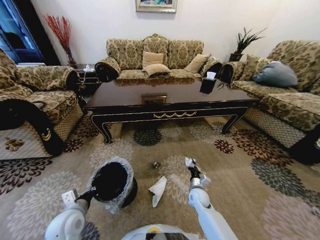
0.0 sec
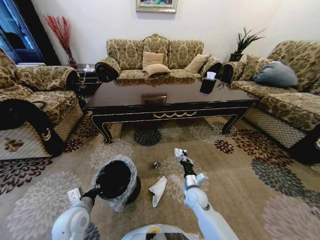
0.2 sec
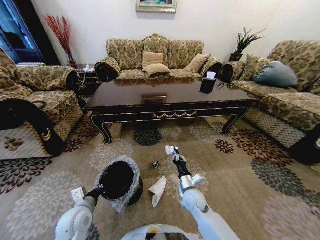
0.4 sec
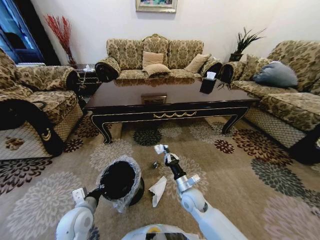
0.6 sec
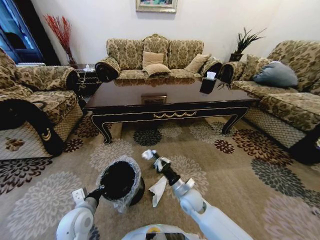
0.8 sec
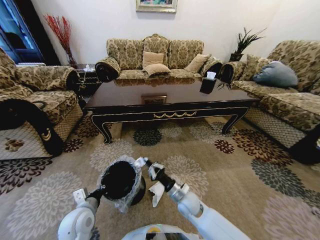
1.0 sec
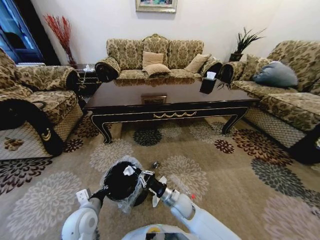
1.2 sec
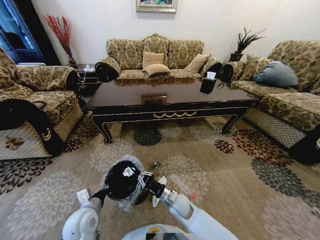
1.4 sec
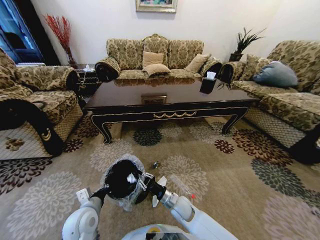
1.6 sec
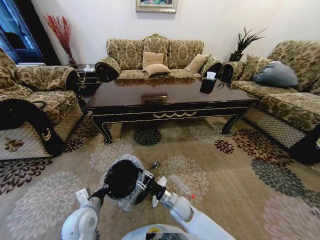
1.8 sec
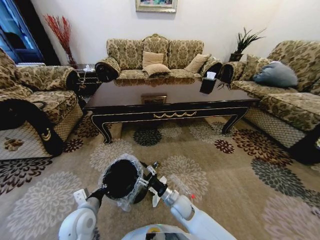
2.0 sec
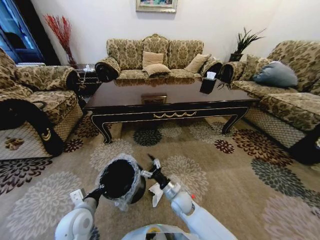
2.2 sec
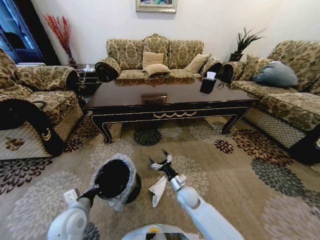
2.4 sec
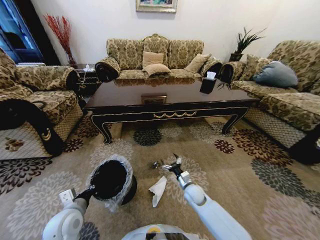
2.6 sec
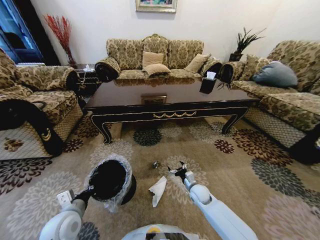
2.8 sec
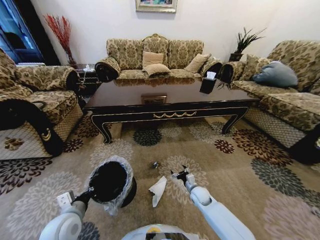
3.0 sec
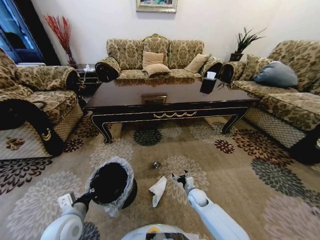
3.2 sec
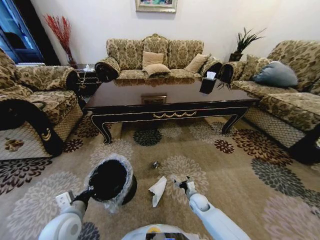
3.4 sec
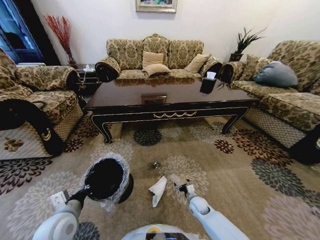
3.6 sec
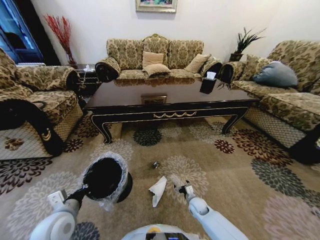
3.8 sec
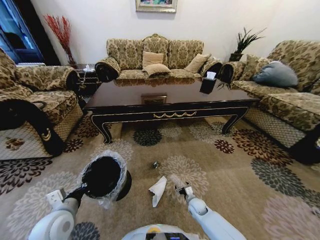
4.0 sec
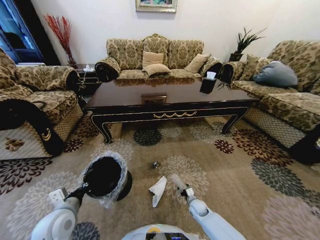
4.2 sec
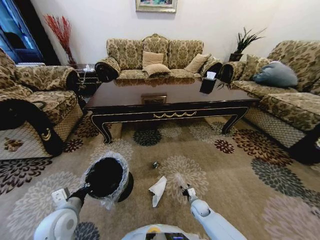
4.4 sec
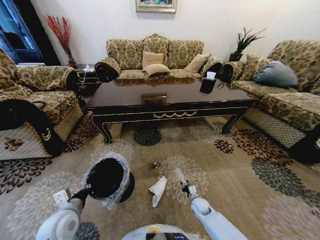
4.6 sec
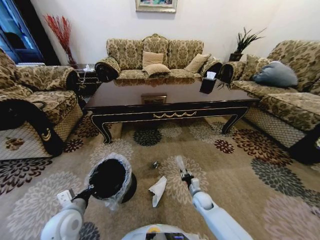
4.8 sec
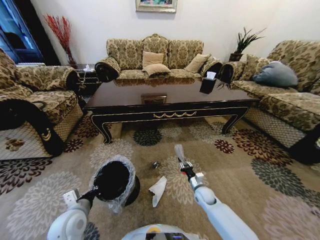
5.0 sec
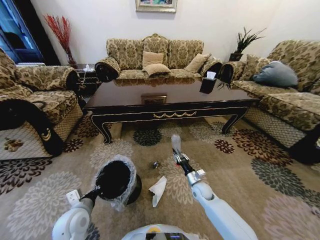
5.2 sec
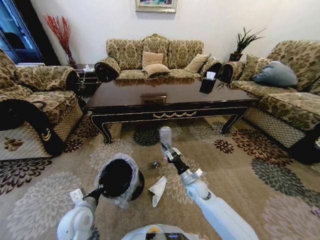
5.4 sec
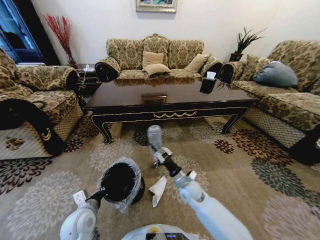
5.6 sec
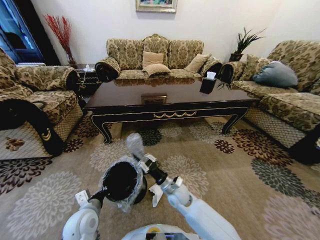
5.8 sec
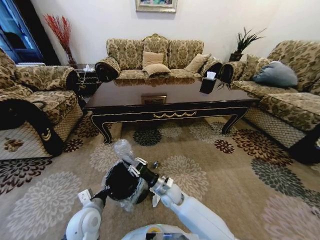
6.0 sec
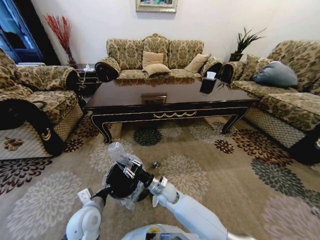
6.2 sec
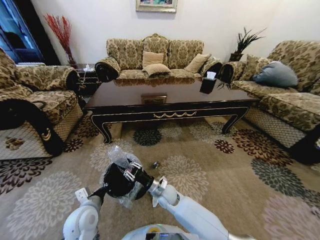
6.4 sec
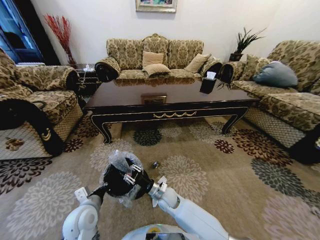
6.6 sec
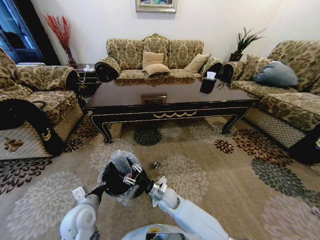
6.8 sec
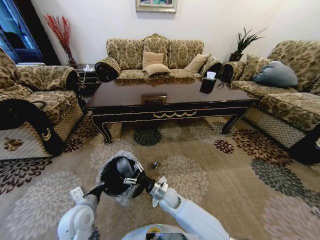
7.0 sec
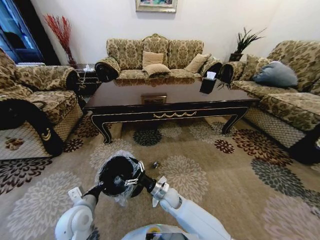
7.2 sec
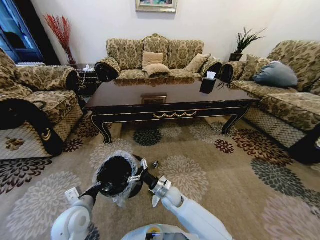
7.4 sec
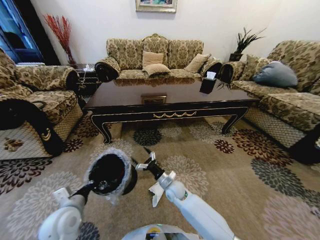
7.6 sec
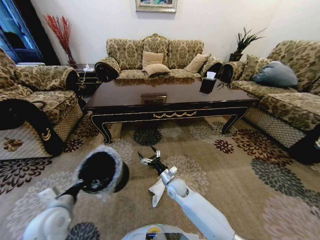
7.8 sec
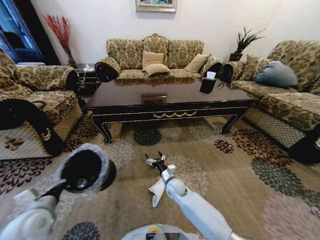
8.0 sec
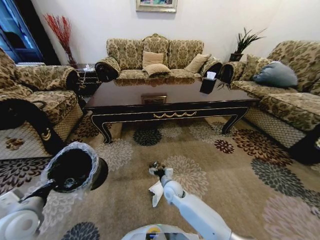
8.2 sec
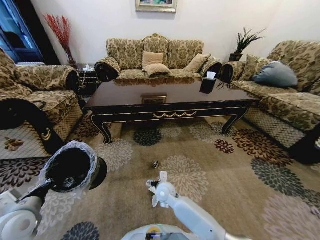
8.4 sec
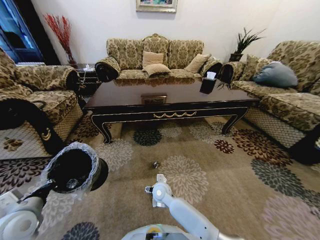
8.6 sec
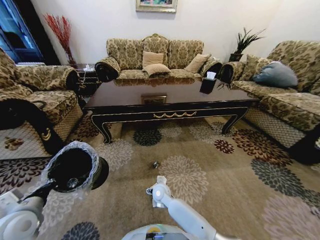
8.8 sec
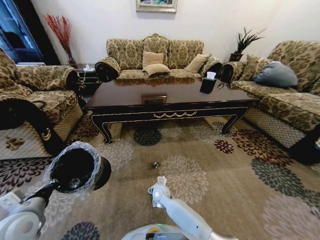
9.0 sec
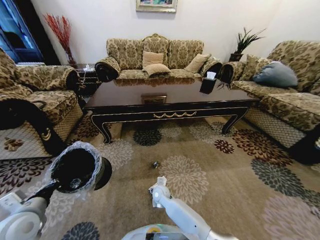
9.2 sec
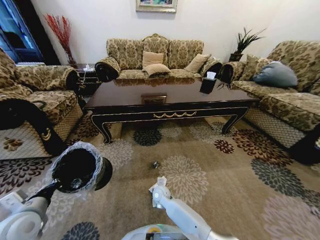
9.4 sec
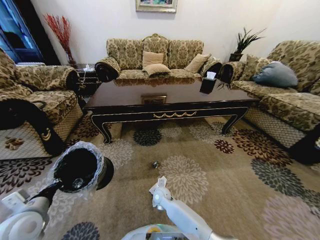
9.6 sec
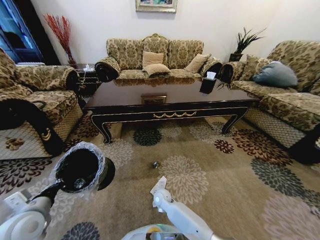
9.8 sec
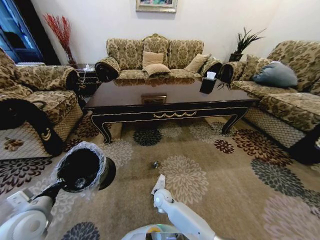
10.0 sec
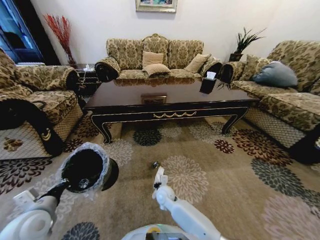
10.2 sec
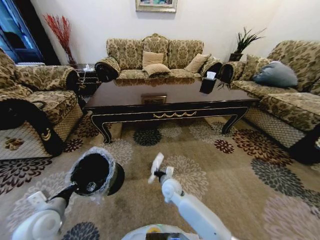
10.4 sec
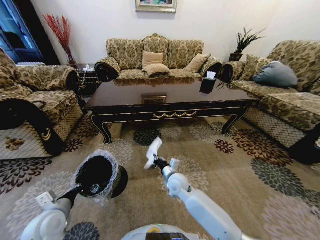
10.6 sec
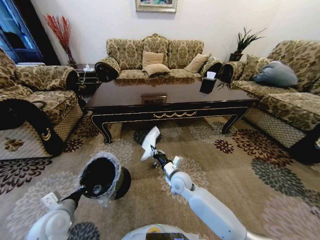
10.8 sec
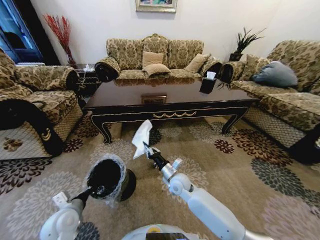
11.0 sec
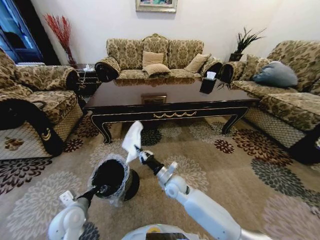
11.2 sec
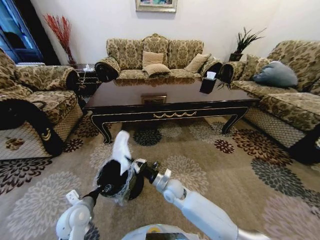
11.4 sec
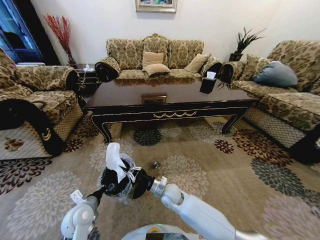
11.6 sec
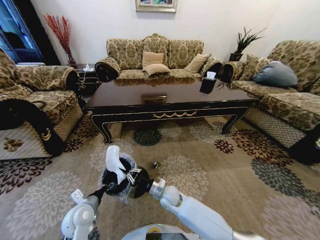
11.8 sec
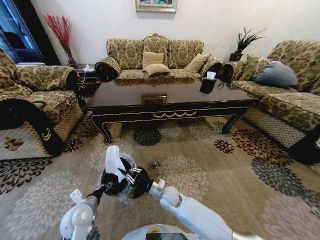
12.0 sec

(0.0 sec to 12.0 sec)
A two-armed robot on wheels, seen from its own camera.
Task of the whole recording: Move to the front of the table and pick up the trash from the floor, then place it into the trash bin.
0.0 sec - 1.6 sec: The right gripper shifts some 10 cm to the left and backward.
1.6 sec - 3.0 sec: The right gripper goes approximately 15 cm to the right and forward, and opens up, while the left gripper moves about 5 cm.
3.0 sec - 4.4 sec: The right gripper heads downward, covering roughly 10 cm, and closes.
4.4 sec - 6.0 sec: The right gripper travels to the left and upward by some 25 cm. The left gripper travels to the right by some 5 cm.
6.0 sec - 7.6 sec: The left gripper moves about 5 cm, while the right gripper opens up.
7.6 sec - 9.0 sec: The two grippers go some 10 cm to the left.
9.0 sec - 10.4 sec: The right gripper shifts about 5 cm upward, and closes up, while the left gripper moves approximately 5 cm.
10.4 sec - 12.0 sec: The left gripper travels to the right and downward by approximately 10 cm. The right gripper reaches approximately 5 cm upward, then returns.

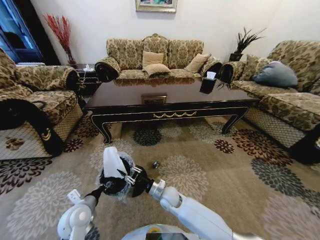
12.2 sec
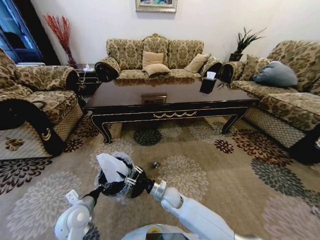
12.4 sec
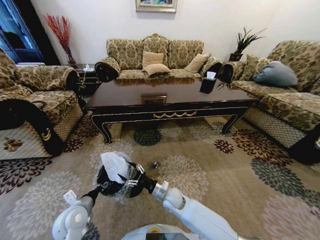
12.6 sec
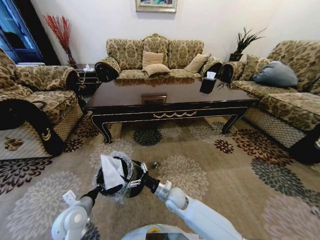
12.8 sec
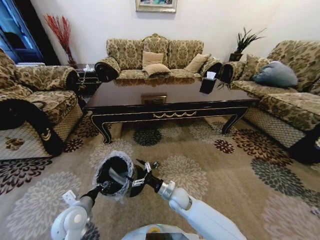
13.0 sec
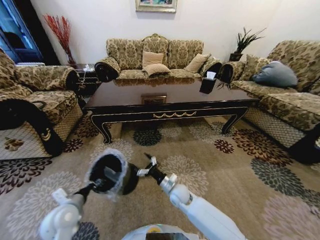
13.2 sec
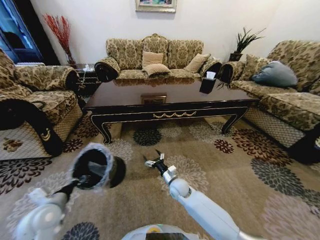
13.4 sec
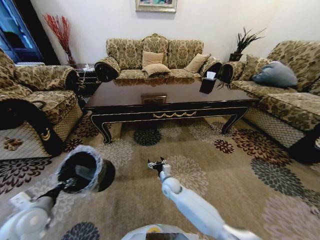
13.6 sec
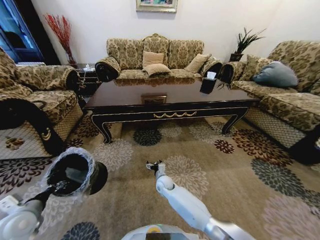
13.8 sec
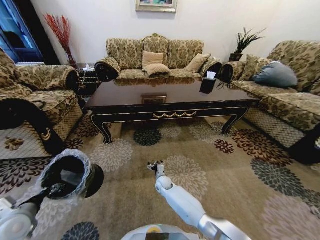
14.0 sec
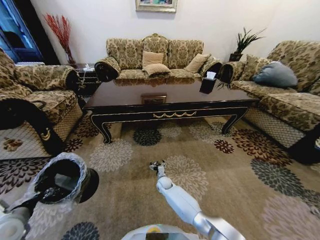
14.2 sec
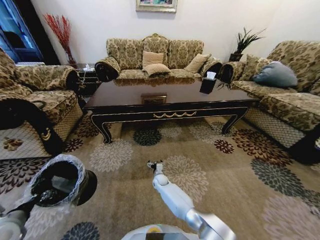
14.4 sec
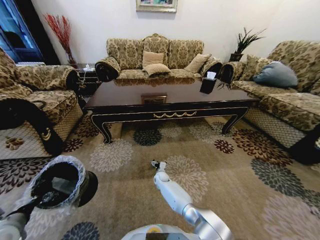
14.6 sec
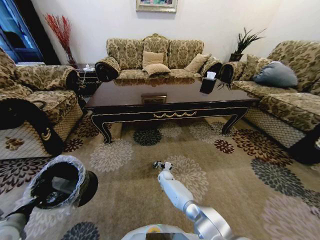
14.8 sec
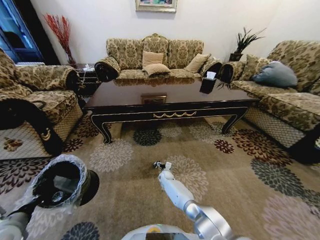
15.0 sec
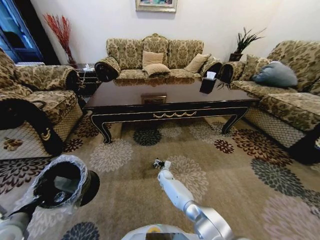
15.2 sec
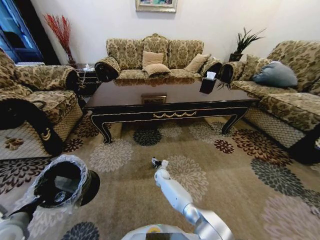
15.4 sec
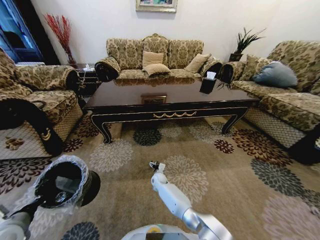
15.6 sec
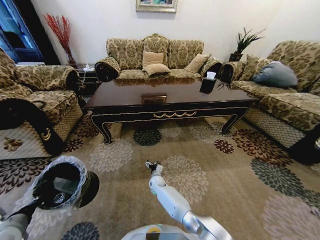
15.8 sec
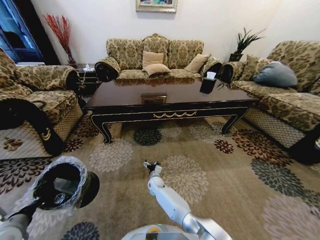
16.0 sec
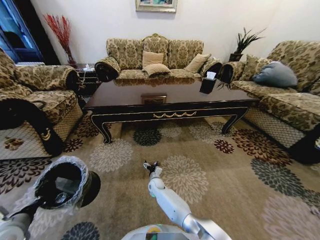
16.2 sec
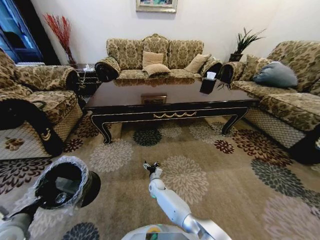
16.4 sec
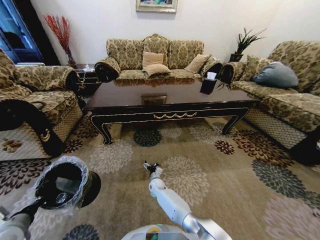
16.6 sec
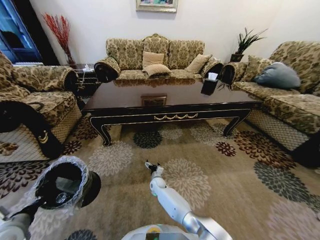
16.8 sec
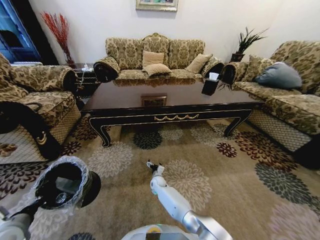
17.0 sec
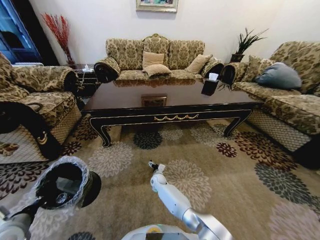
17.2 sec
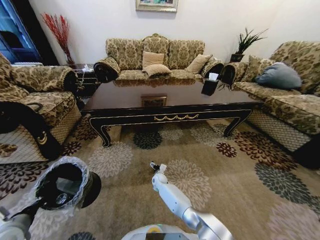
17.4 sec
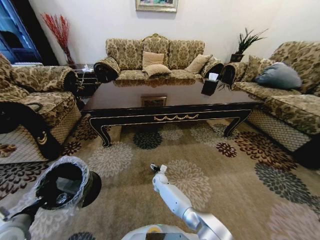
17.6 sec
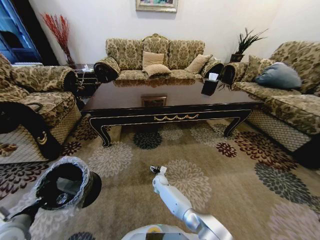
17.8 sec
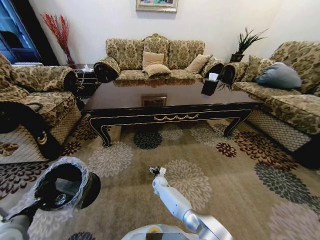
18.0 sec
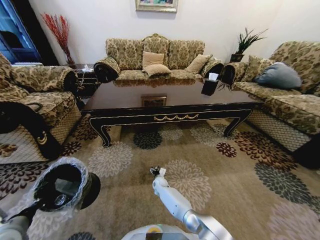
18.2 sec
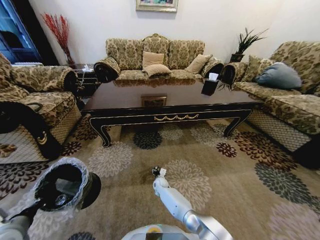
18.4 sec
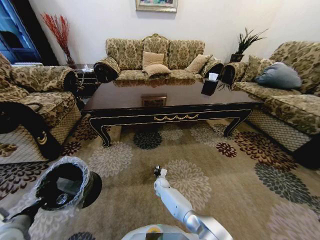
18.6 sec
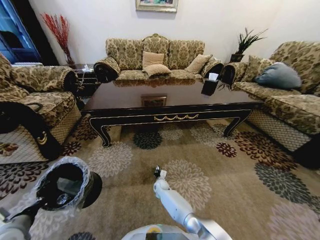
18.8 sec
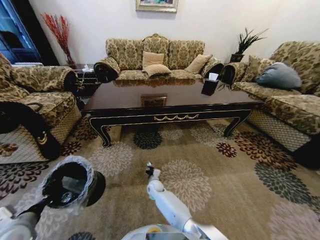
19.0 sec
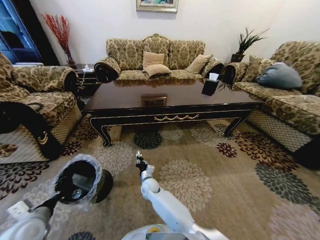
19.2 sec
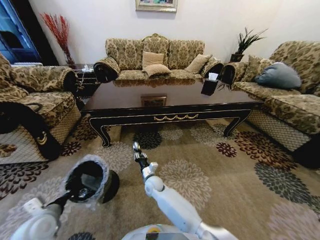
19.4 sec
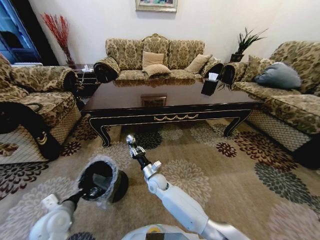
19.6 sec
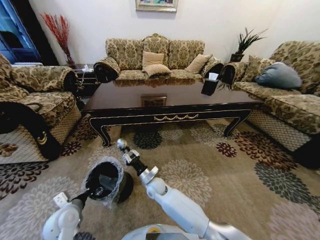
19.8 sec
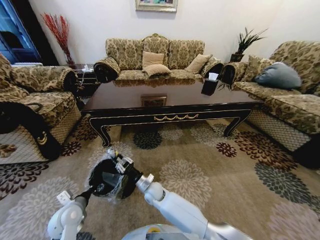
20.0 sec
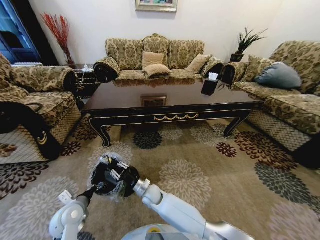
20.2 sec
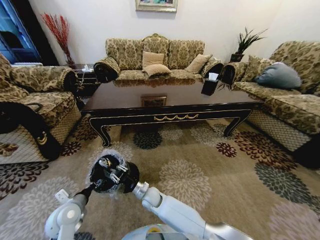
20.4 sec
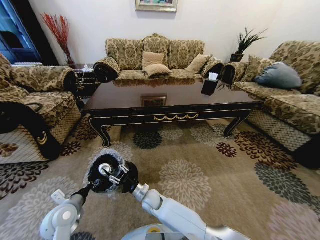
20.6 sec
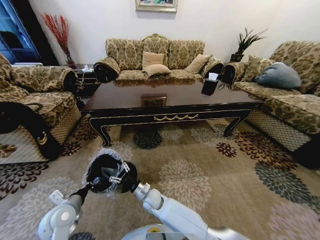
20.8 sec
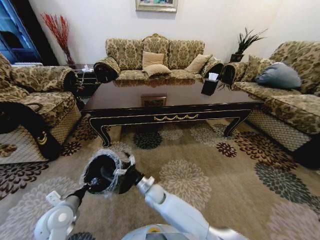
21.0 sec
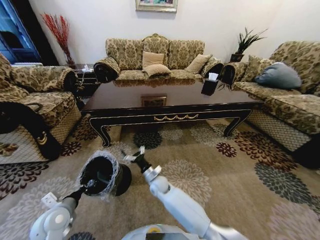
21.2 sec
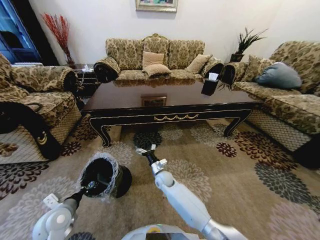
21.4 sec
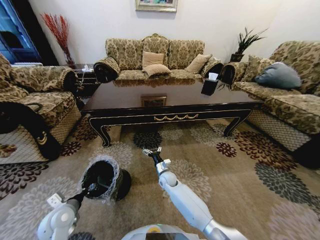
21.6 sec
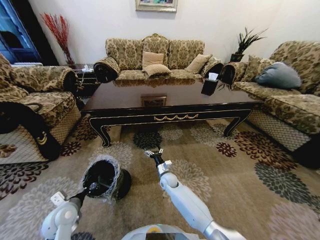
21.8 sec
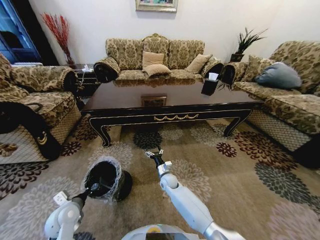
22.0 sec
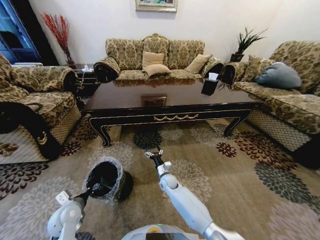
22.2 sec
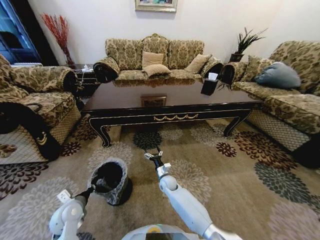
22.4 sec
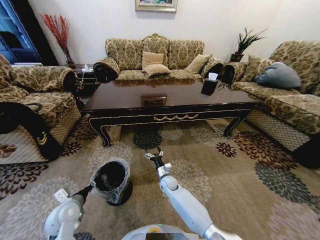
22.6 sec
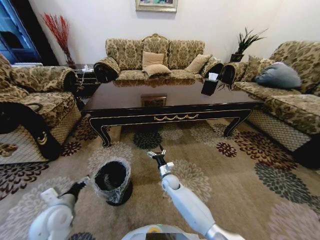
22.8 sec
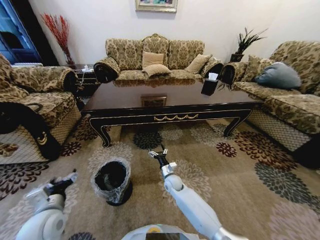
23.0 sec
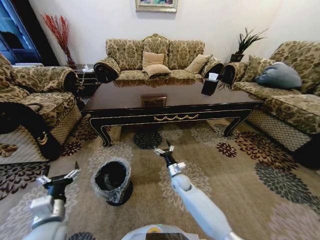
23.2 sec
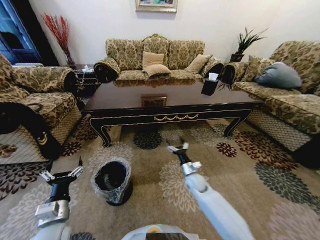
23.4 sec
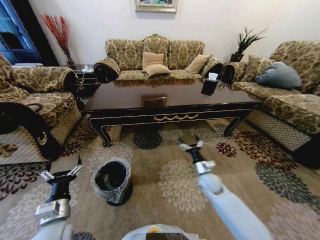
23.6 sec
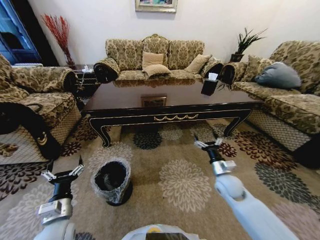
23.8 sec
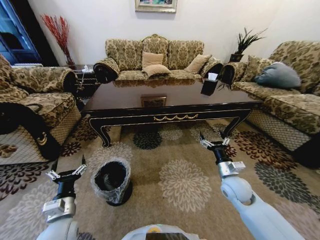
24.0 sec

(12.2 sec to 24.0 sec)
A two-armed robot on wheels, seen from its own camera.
Task of the whole recording: Move to the front of the table and pick up the trash from the floor, then place it into the trash bin.
12.2 sec - 13.6 sec: The right gripper is displaced forward by roughly 5 cm, and opens; the left gripper shifts roughly 15 cm to the left and upward.
13.6 sec - 15.2 sec: The right gripper goes some 15 cm forward and downward. Meanwhile the left gripper shifts by some 5 cm.
15.2 sec - 16.6 sec: The right gripper moves to the left and backward, approximately 10 cm.
16.6 sec - 18.2 sec: There are only small adjustments of the grippers.
18.2 sec - 19.6 sec: The right gripper travels upward by approximately 15 cm, and closes. The left gripper moves to the right, downward and forward, some 10 cm.
19.6 sec - 21.0 sec: The right gripper moves backward, approximately 5 cm, and opens its fingers.
21.0 sec - 22.6 sec: The left gripper opens its fingers. Meanwhile the right gripper travels to the right and forward by roughly 10 cm.
22.6 sec - 24.0 sec: The left gripper moves backward, roughly 5 cm, and opens its fingers; the right gripper is displaced to the right and upward by about 30 cm.
